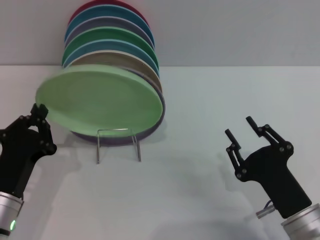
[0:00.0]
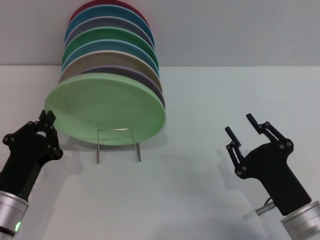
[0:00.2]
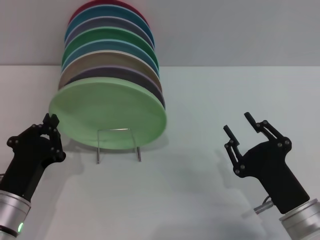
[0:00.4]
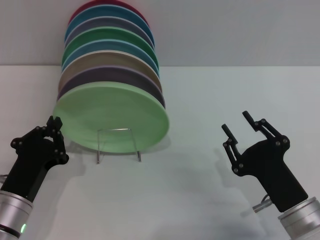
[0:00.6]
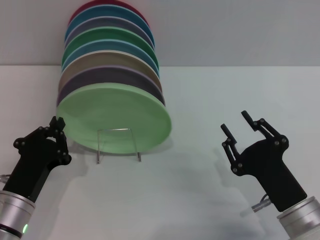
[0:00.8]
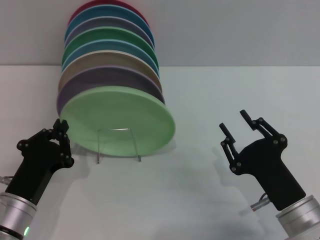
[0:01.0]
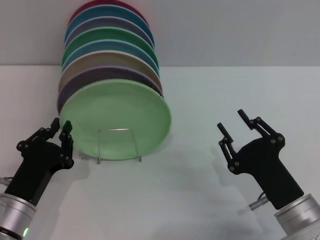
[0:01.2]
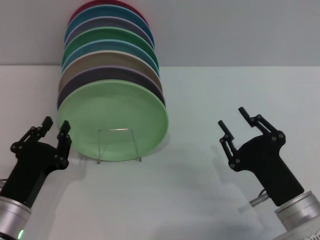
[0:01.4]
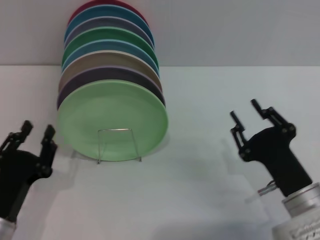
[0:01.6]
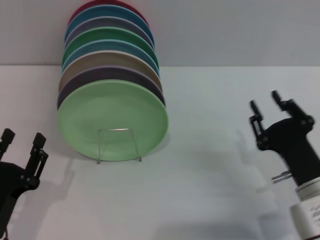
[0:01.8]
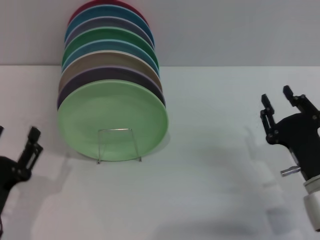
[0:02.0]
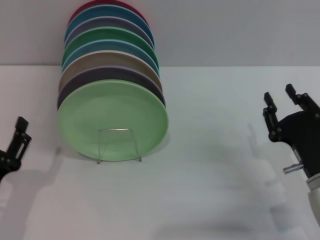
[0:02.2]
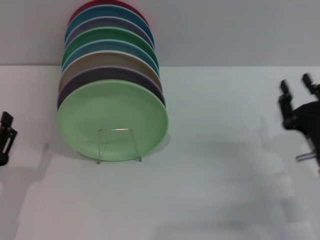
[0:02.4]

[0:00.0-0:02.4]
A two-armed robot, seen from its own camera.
Task of the whole recording: Grip the plate with one hand, pass it to the other, then set it on the shelf.
Step, 0:00.0 to 0:01.4: Place the plate on the shelf with the left gripper.
0:00.0 to 0:01.2: The grippers move only a little.
0:01.2 to 0:02.4: The right gripper travels to the right by approximately 5 cm; the left gripper shifts by approximately 5 cm, and opens up.
